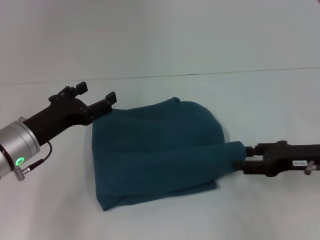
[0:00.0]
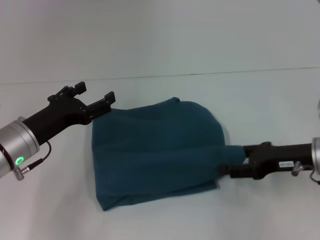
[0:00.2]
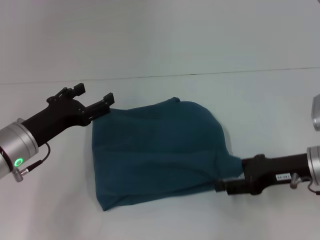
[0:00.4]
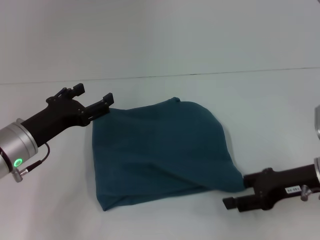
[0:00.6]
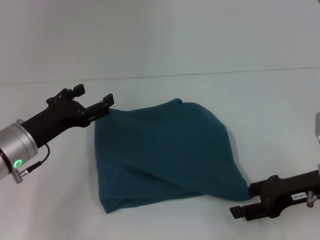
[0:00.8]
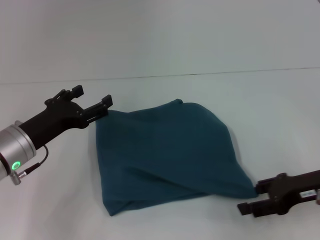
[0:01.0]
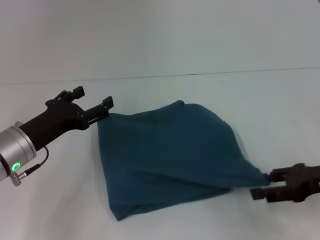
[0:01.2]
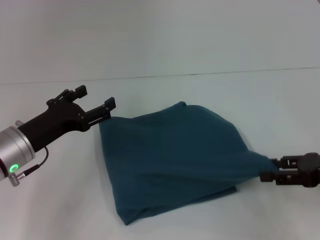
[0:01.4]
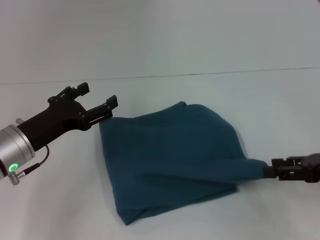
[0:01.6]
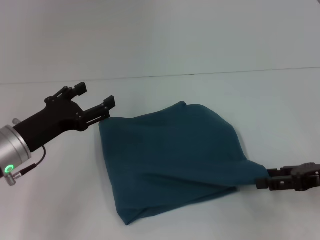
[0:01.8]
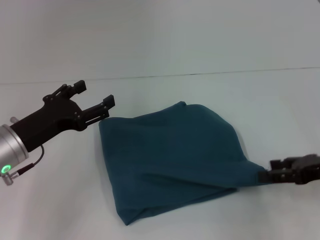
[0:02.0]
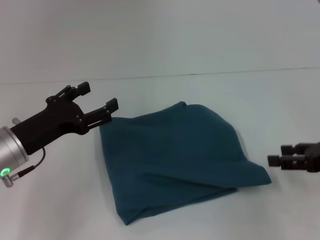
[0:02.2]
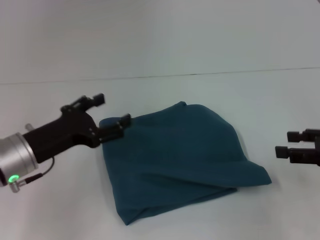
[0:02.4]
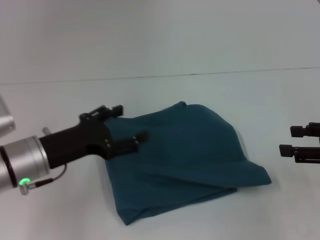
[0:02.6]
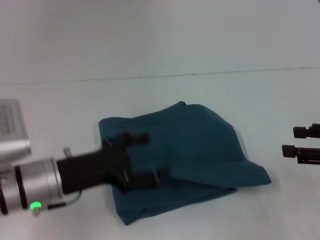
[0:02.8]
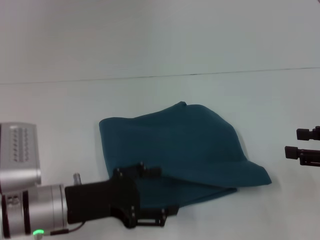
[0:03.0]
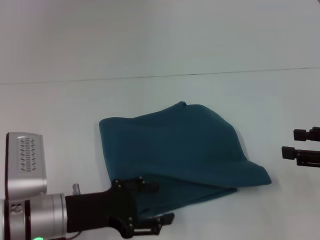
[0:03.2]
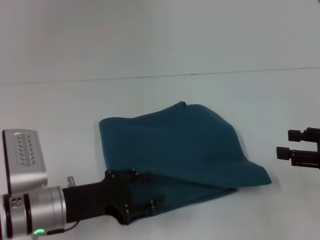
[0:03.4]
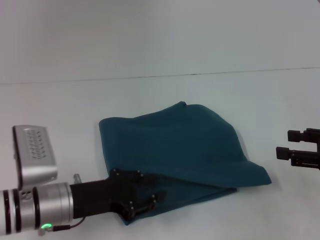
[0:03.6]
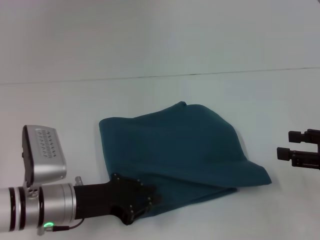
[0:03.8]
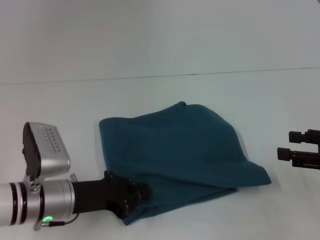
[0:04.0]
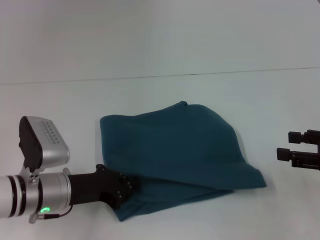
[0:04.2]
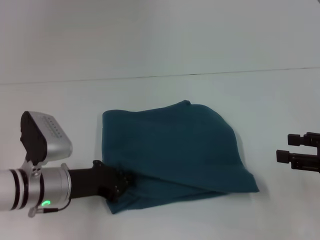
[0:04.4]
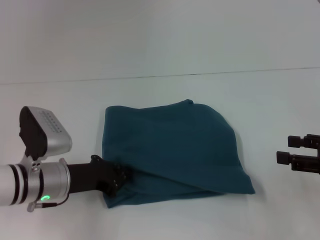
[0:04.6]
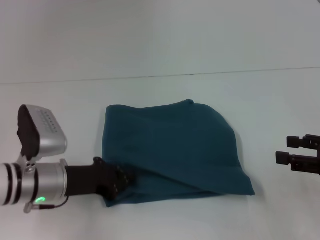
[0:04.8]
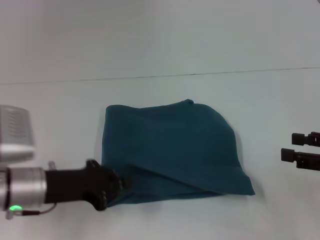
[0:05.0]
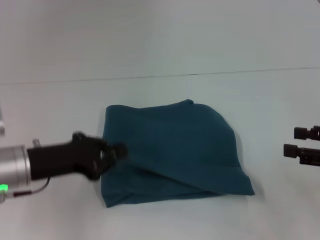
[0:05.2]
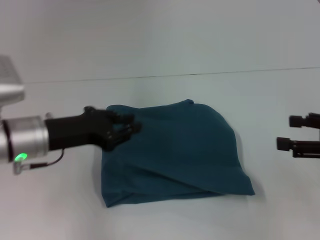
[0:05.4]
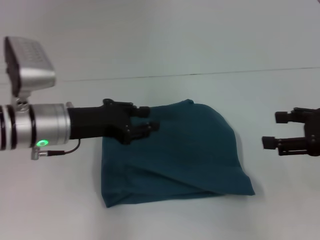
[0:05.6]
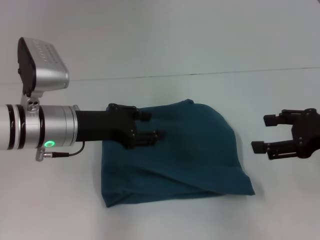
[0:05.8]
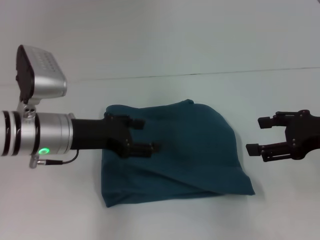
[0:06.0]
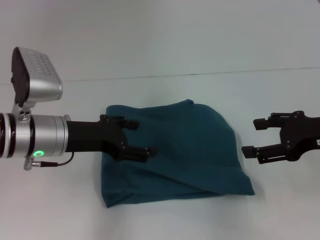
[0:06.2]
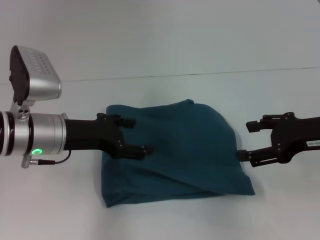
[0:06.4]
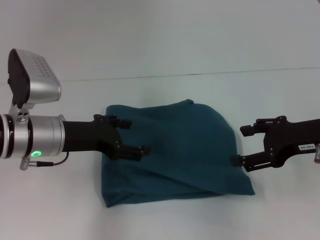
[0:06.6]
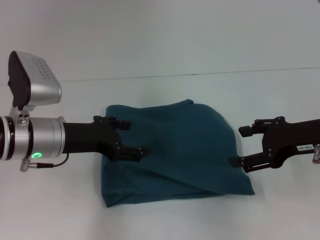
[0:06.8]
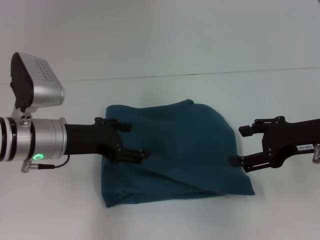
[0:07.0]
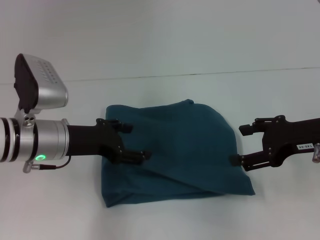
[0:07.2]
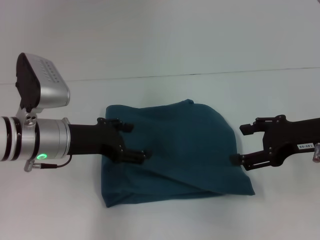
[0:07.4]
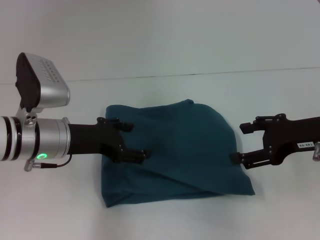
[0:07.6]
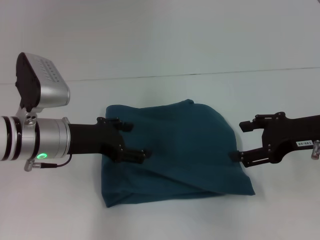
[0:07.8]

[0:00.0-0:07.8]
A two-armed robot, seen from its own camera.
0:00.0 to 0:01.6: The right gripper changes place by some 5 cm.
0:01.6 to 0:03.2: The left gripper shifts about 5 cm backward.
0:03.2 to 0:04.6: The left gripper travels forward by some 5 cm, and closes.
0:04.6 to 0:06.2: The left gripper goes approximately 10 cm upward, and opens. Meanwhile the right gripper shifts approximately 5 cm to the left.
0:06.2 to 0:07.8: The grippers move only a little.

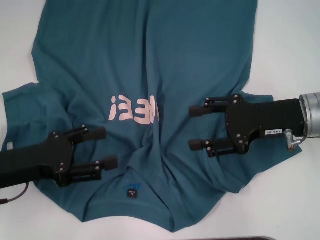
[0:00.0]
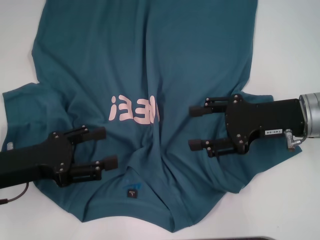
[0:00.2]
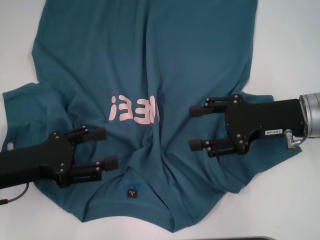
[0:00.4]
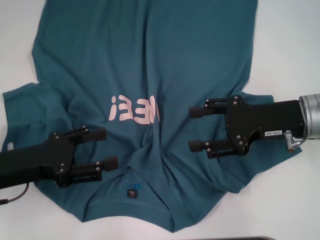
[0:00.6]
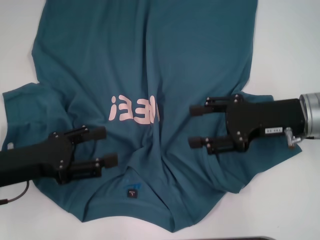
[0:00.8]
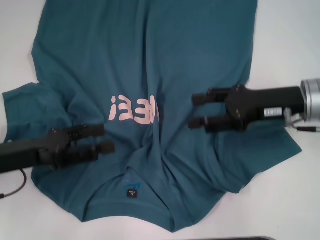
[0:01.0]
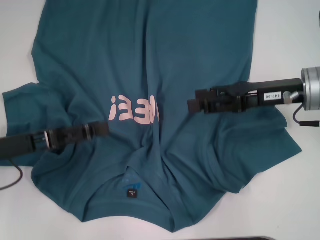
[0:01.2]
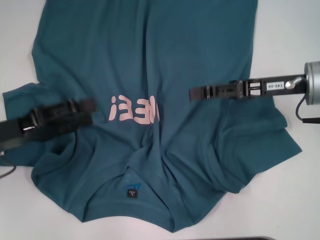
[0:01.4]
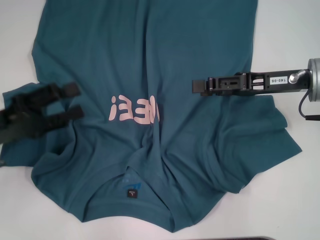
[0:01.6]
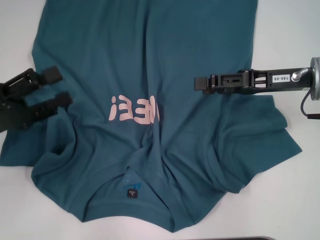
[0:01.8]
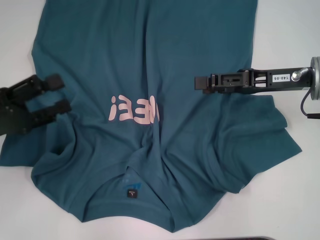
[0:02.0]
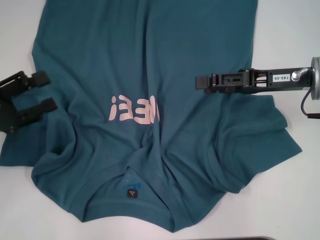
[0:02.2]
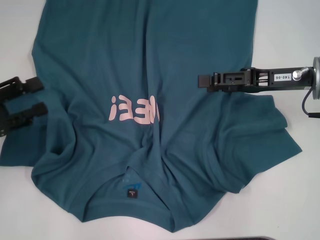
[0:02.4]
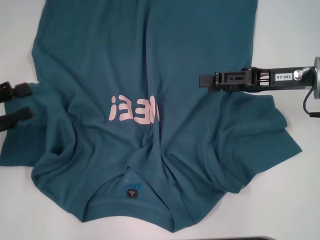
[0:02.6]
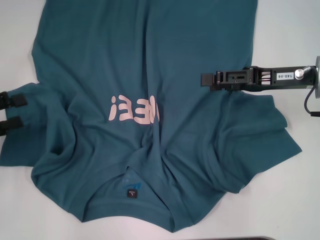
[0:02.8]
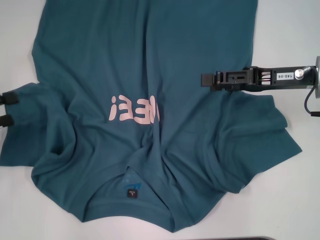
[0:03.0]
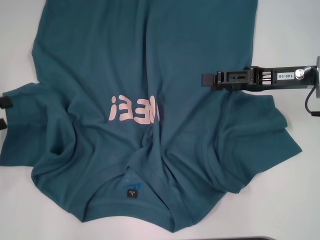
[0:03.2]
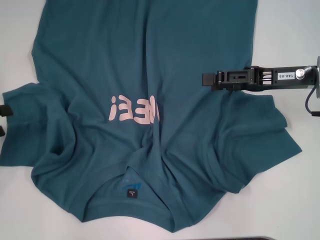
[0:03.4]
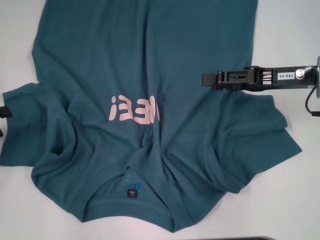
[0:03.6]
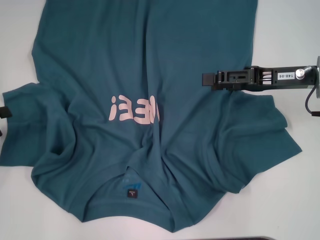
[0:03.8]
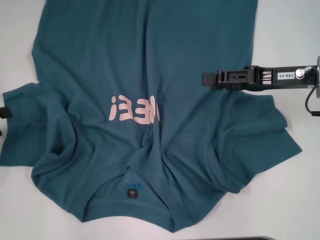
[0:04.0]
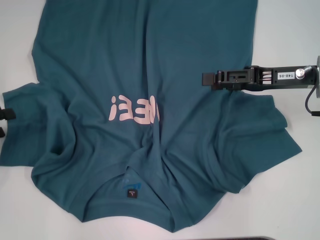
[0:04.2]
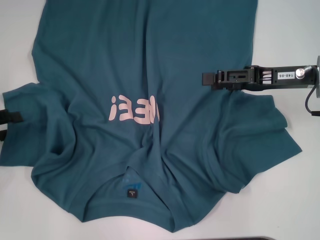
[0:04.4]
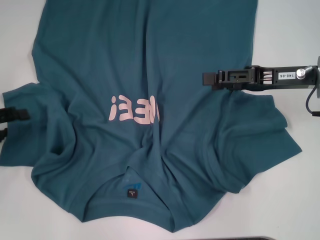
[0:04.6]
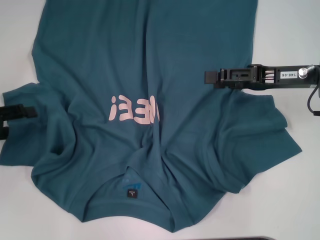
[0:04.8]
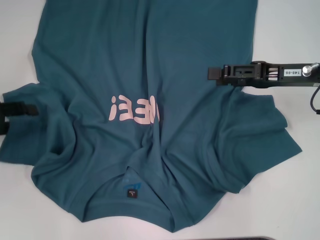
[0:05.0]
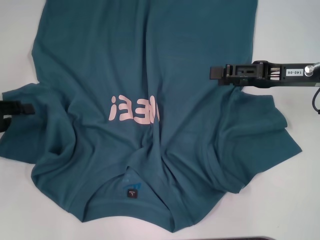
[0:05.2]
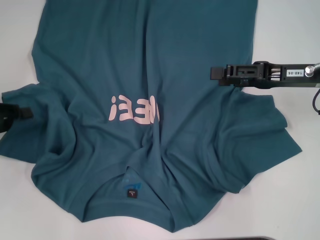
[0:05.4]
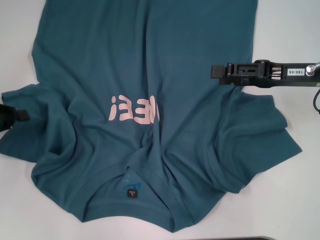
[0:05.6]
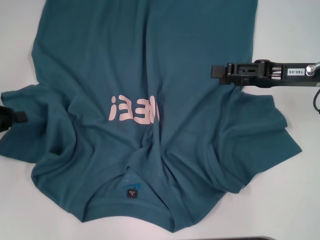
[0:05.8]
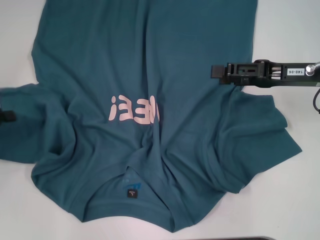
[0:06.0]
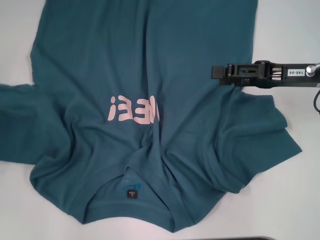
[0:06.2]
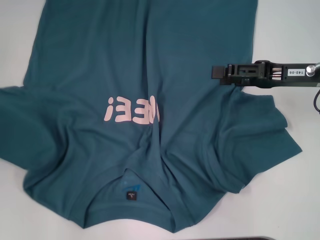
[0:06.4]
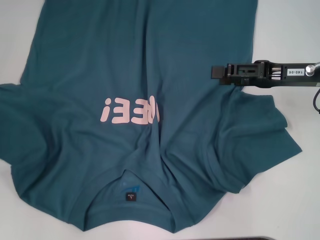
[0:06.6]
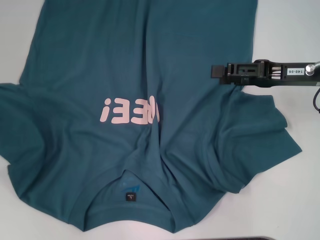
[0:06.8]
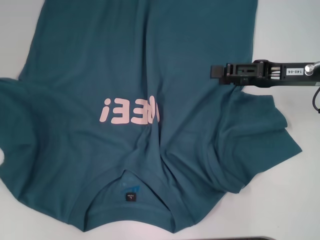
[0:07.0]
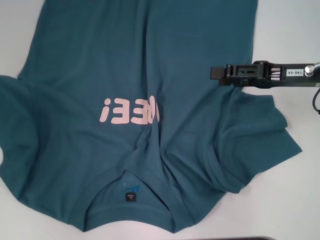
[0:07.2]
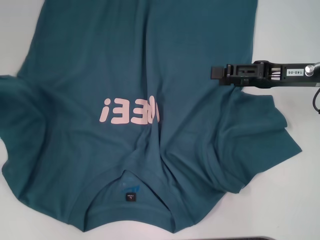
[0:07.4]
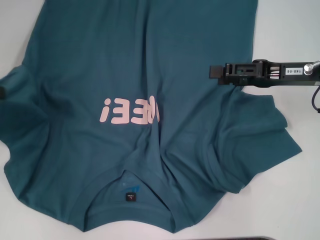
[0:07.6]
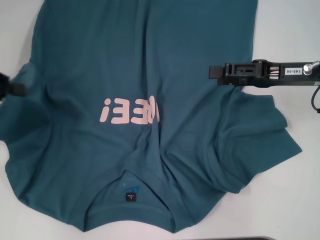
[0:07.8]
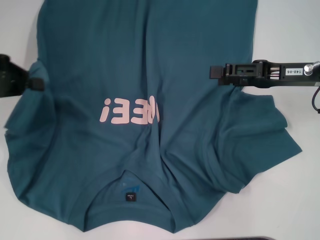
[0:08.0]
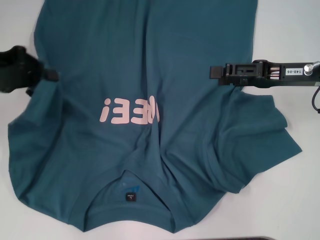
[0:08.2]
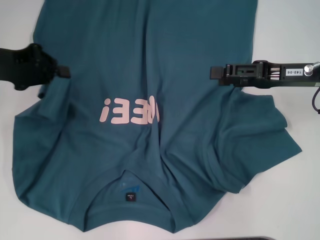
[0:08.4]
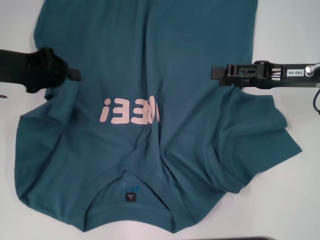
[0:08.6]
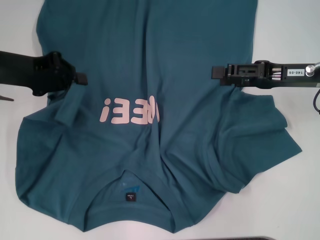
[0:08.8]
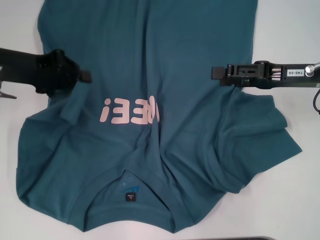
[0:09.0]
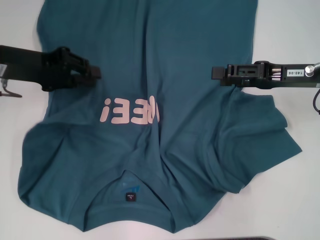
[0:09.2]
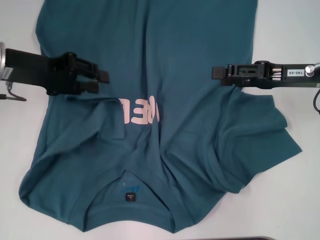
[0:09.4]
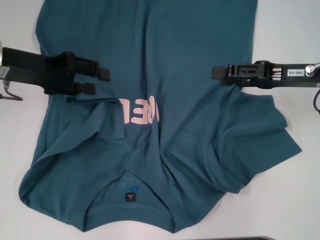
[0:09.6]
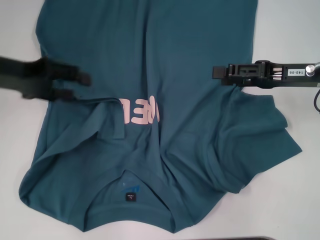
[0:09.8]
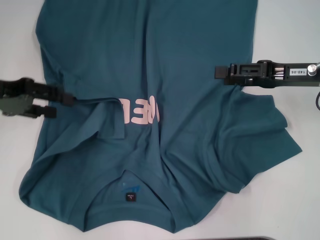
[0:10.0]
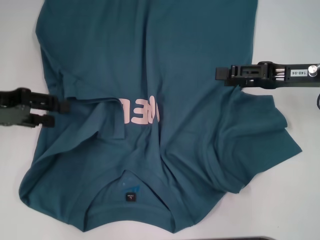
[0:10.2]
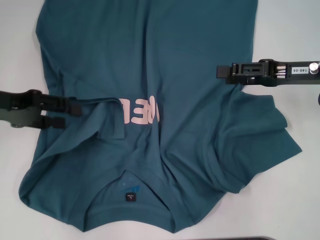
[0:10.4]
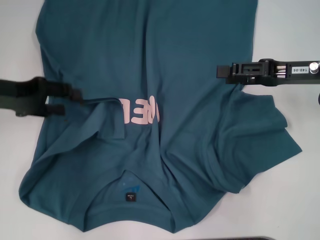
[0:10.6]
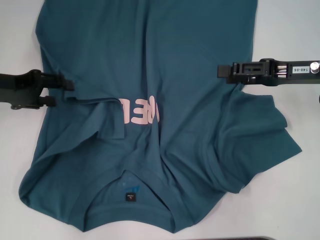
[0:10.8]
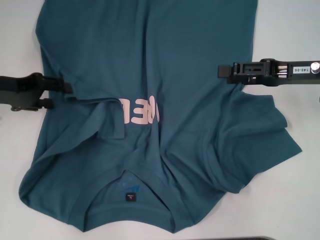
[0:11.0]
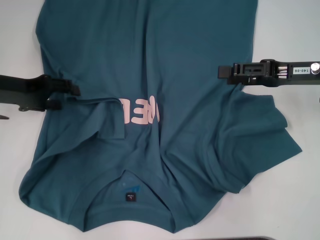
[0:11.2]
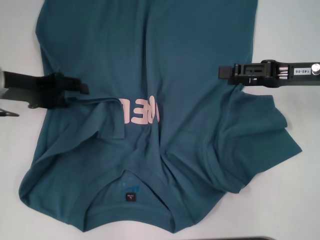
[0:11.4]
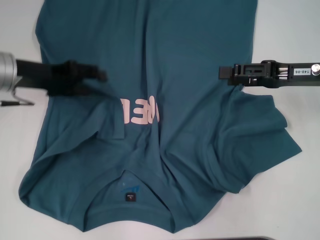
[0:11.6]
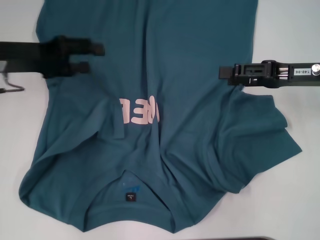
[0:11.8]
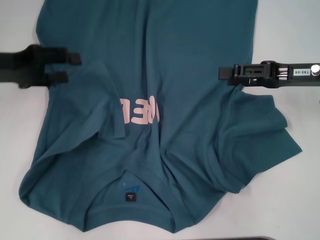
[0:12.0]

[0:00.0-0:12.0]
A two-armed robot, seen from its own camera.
0:01.6 to 0:03.0: The left gripper heads to the left, covering approximately 10 cm.
0:03.0 to 0:04.4: The grippers make only small movements.
0:04.4 to 0:06.0: The left gripper closes.
0:06.0 to 0:07.6: The left gripper shifts approximately 10 cm upward.
0:07.6 to 0:09.0: The left gripper travels to the right by roughly 10 cm.
0:09.0 to 0:10.4: The left gripper ends up some 5 cm from where it was, and opens.

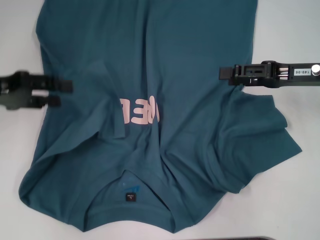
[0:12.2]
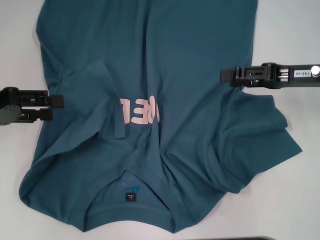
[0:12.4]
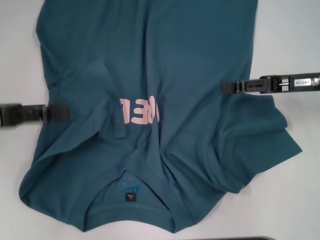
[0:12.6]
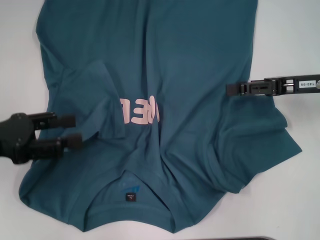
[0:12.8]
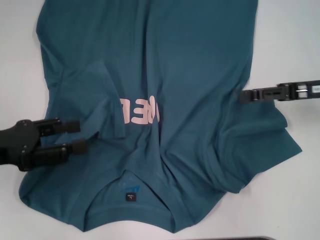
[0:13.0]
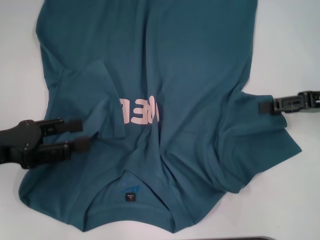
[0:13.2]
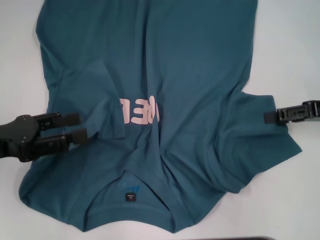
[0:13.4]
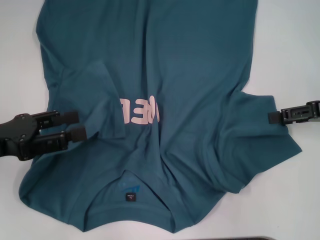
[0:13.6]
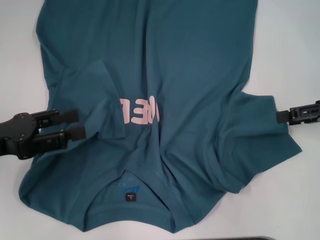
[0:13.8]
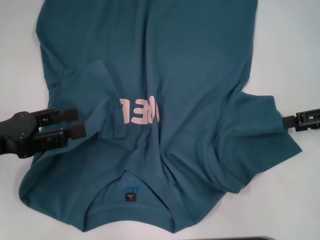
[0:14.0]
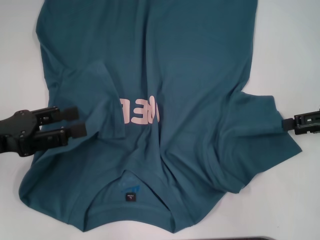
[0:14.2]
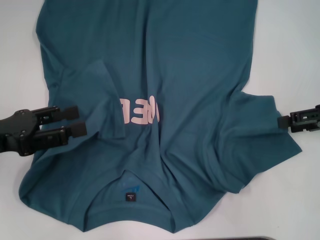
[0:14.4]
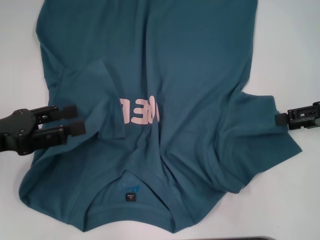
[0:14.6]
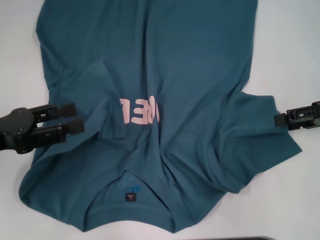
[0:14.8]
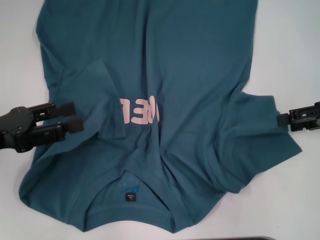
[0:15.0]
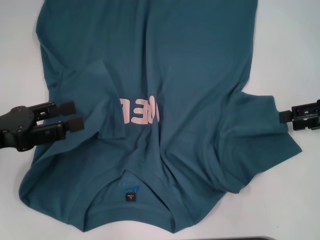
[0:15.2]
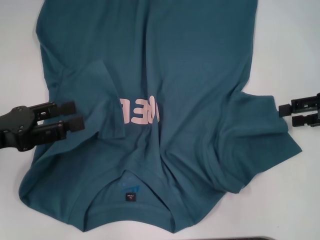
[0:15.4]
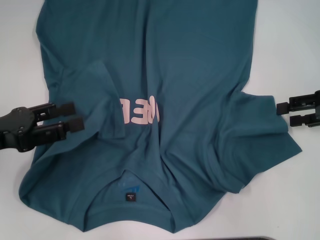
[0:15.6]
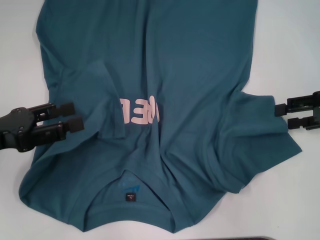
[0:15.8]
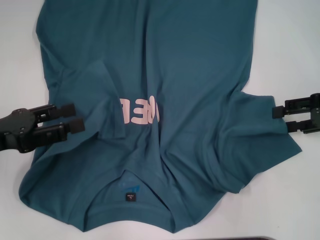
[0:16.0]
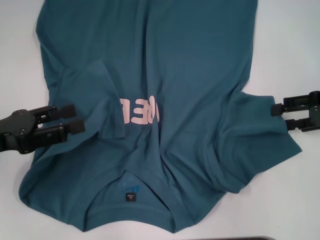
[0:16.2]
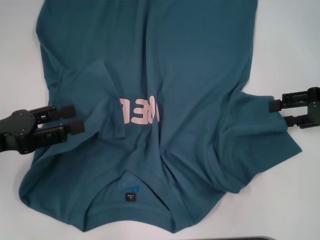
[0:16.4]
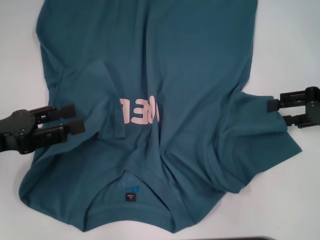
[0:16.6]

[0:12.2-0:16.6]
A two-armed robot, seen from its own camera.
0:12.2 to 0:13.6: The right gripper goes approximately 5 cm to the right, while the left gripper goes some 10 cm backward.
0:13.6 to 0:15.2: The grippers stay close to where they were, moving slightly.
0:15.2 to 0:16.6: The grippers stay close to where they were, moving slightly.
